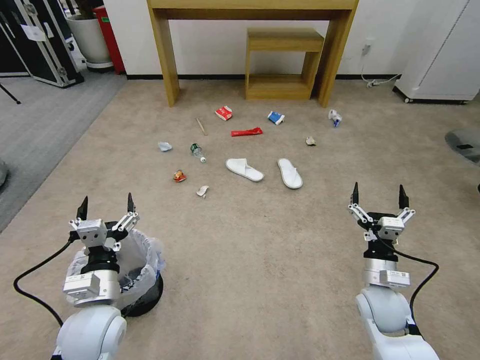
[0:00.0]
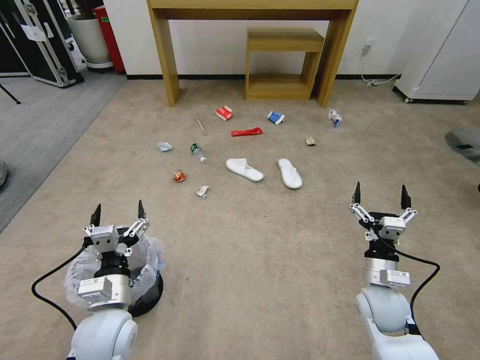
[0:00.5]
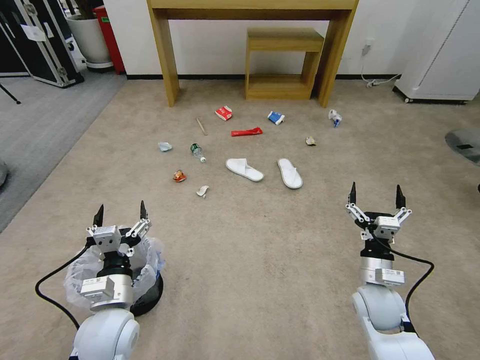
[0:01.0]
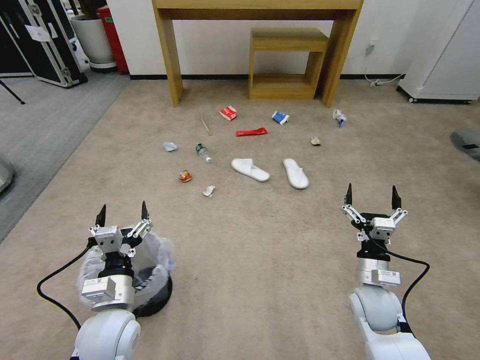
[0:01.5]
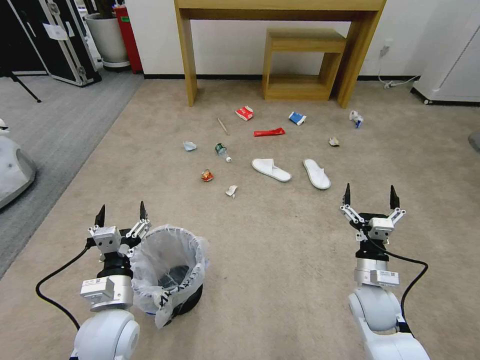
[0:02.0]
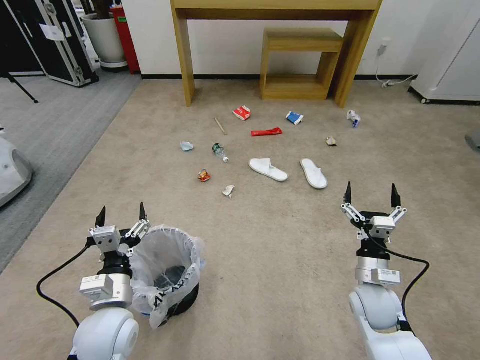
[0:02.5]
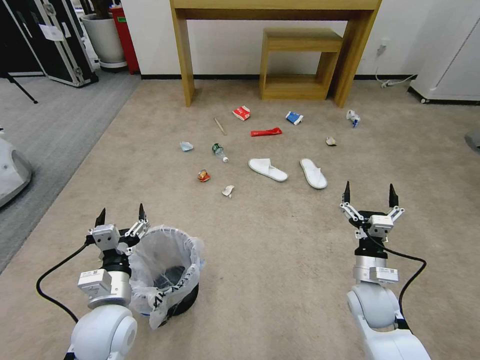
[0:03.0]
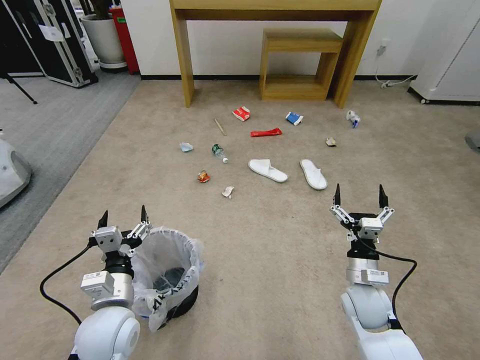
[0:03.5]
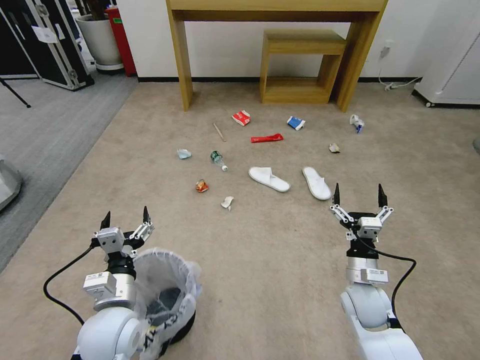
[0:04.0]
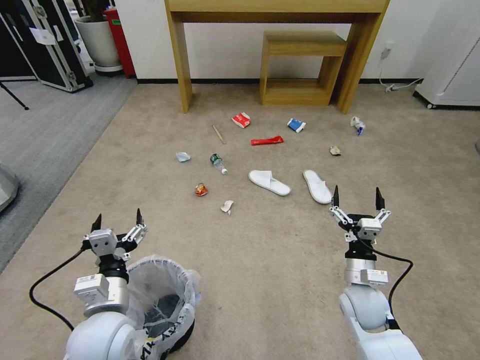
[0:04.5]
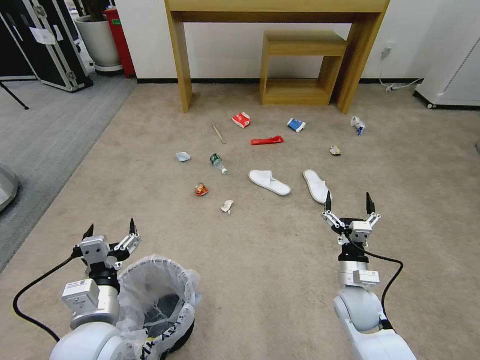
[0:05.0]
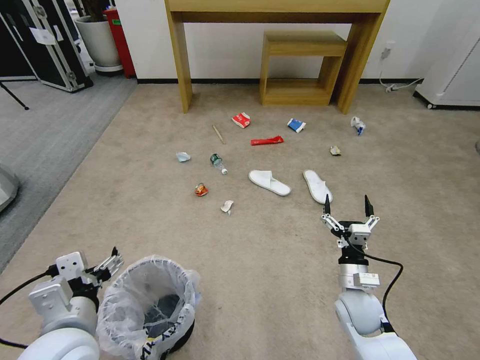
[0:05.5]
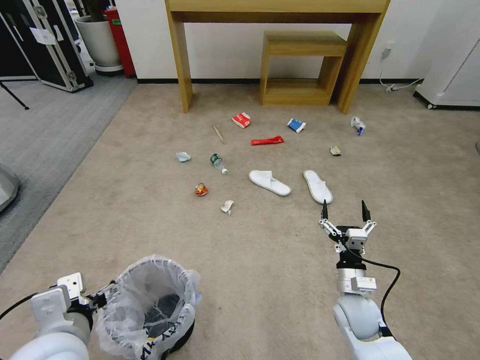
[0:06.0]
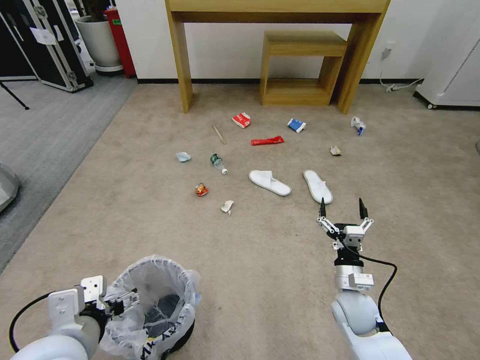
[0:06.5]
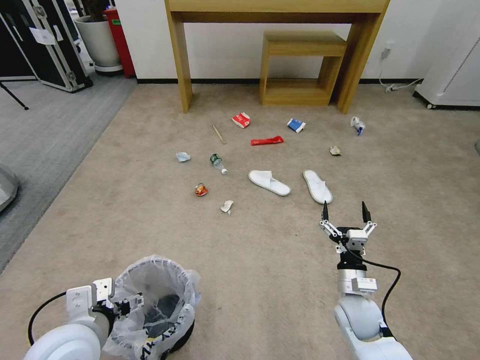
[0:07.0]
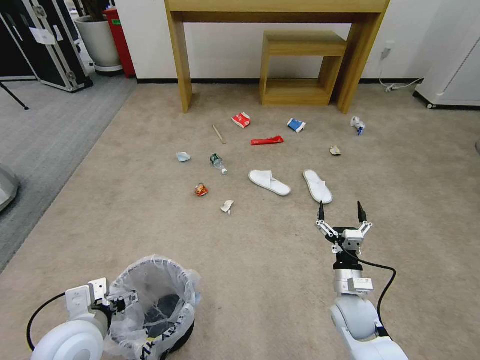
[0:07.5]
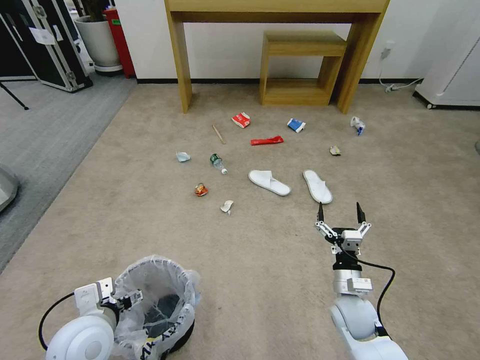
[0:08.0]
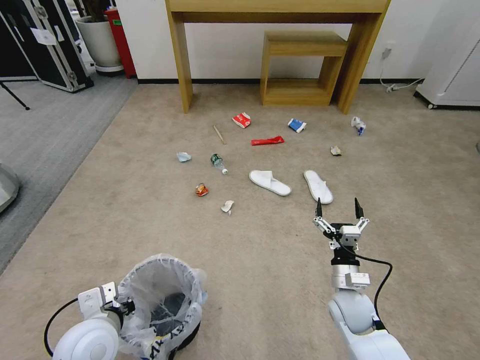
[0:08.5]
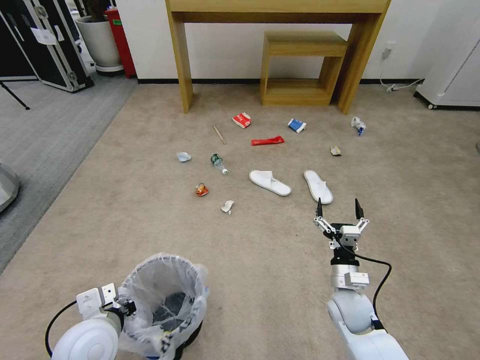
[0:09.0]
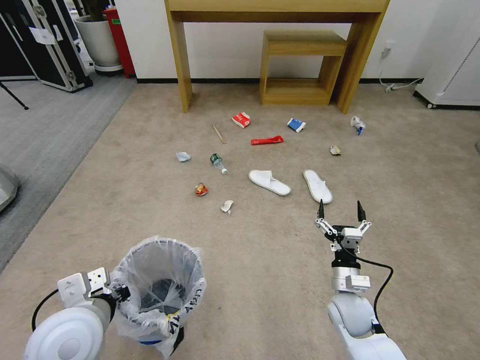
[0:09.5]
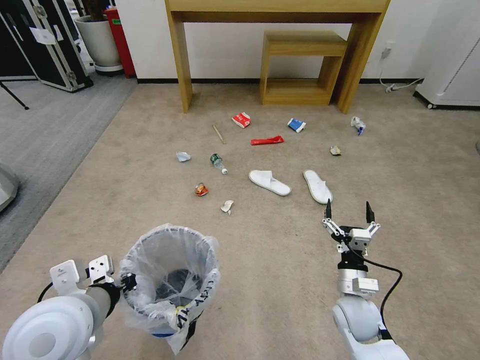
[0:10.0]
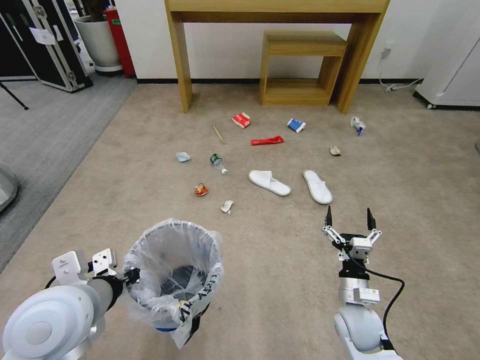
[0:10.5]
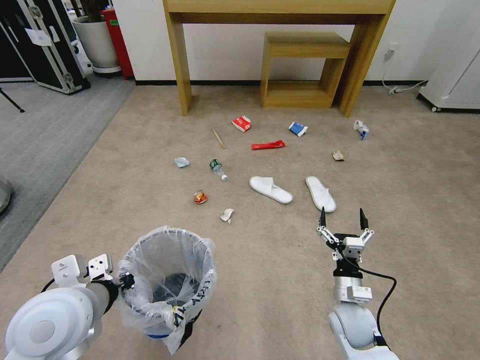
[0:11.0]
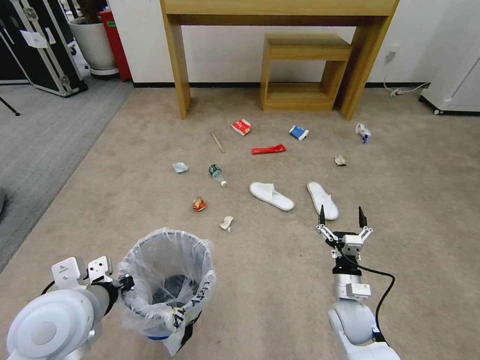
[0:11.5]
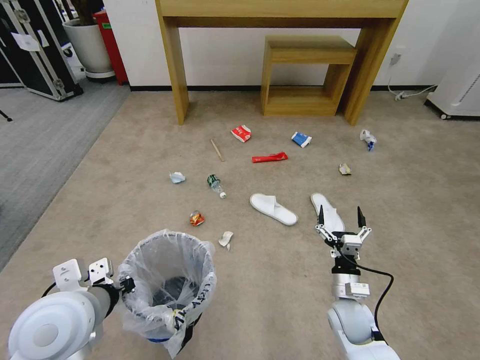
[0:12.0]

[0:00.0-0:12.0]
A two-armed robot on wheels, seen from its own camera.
Task of the whole recording: Pick up the trash bin and place the garbage on the floor into it.
0:02.0 to 0:04.0: The grippers make only small movements.
0:04.0 to 0:06.0: The left gripper goes about 10 cm upward and backward.
0:06.0 to 0:08.0: The left gripper travels downward by some 10 cm.
0:08.0 to 0:10.0: The left gripper goes approximately 10 cm upward, and closes its fingers.

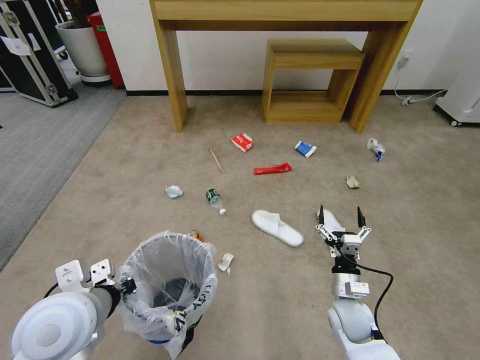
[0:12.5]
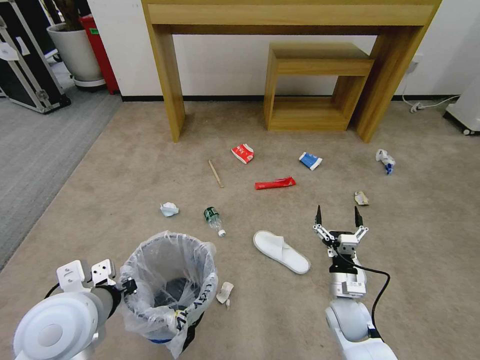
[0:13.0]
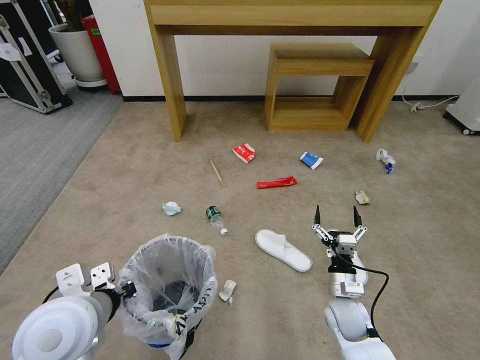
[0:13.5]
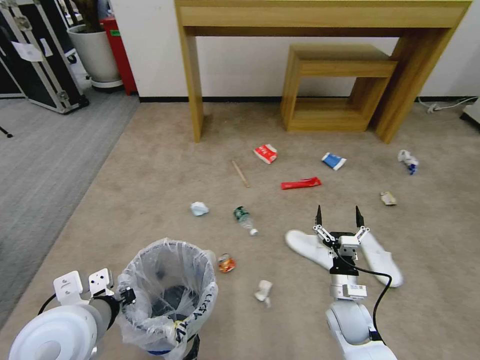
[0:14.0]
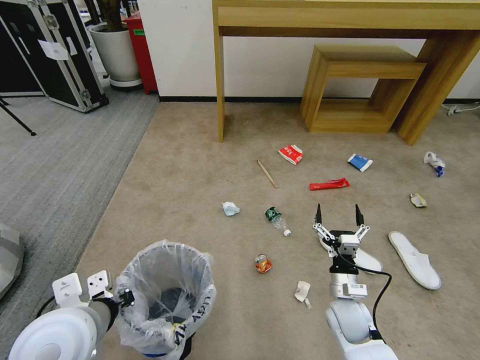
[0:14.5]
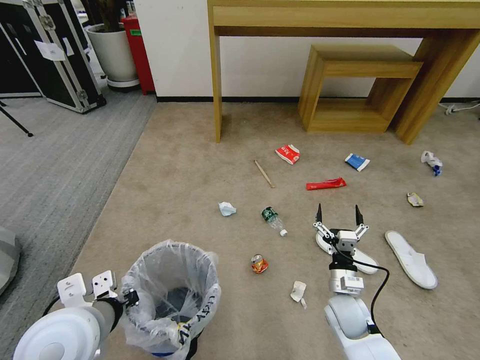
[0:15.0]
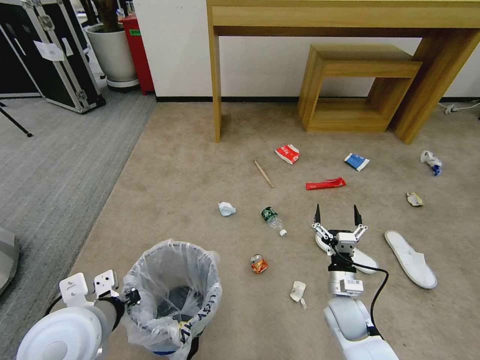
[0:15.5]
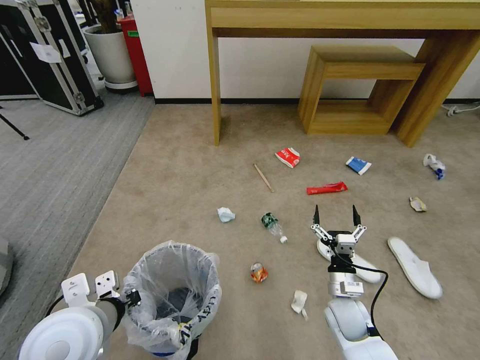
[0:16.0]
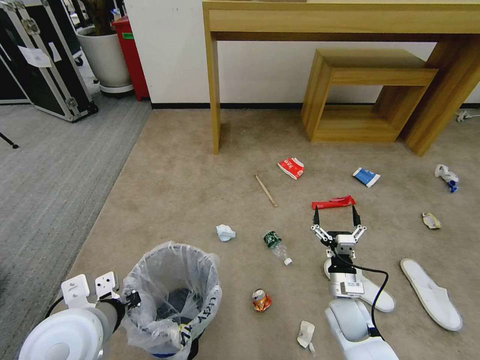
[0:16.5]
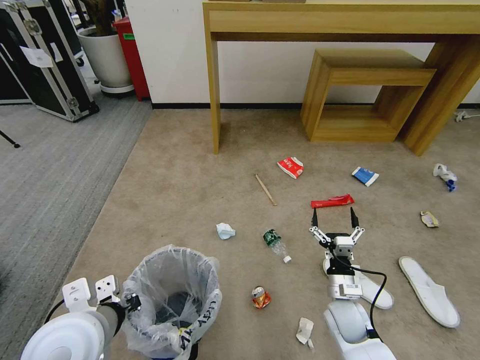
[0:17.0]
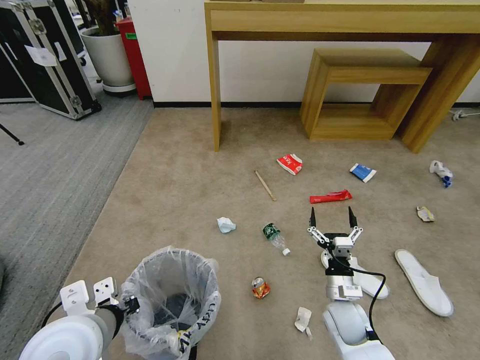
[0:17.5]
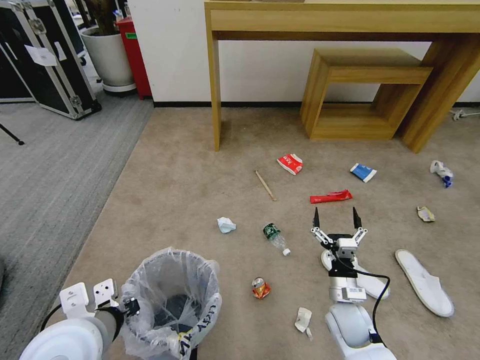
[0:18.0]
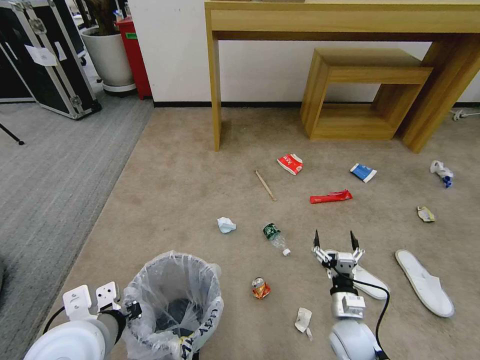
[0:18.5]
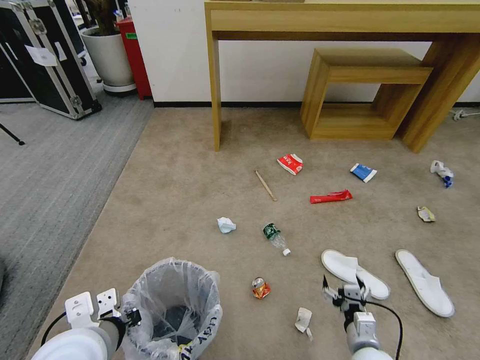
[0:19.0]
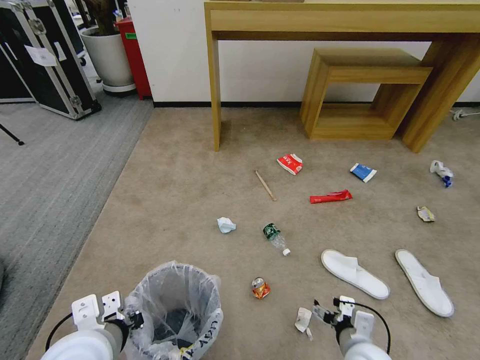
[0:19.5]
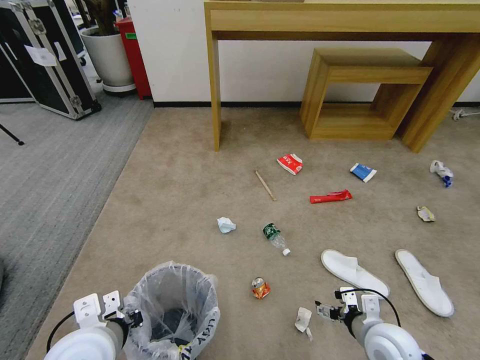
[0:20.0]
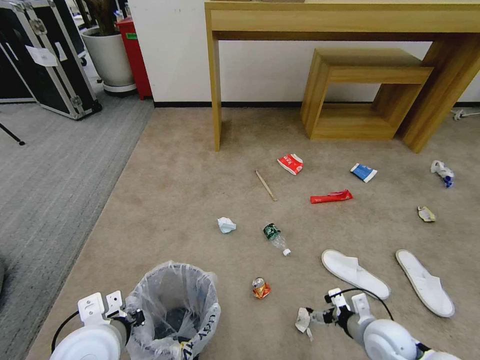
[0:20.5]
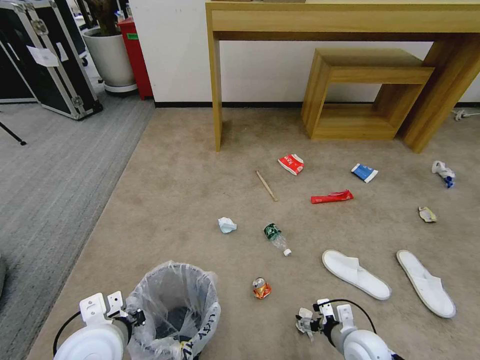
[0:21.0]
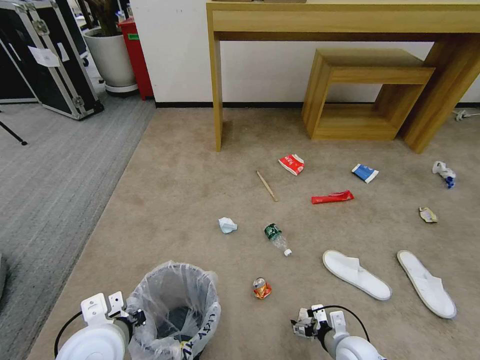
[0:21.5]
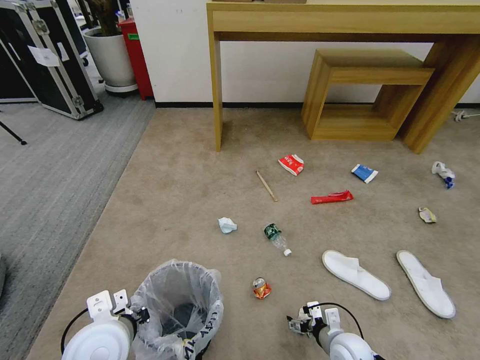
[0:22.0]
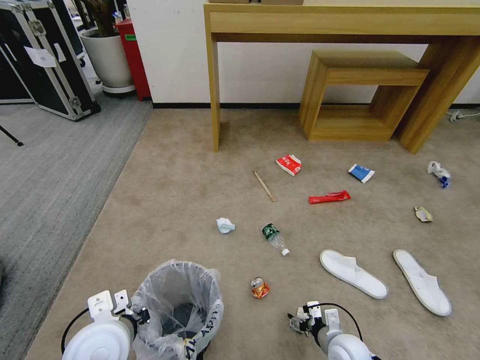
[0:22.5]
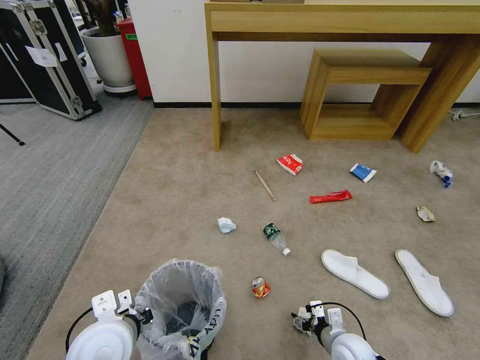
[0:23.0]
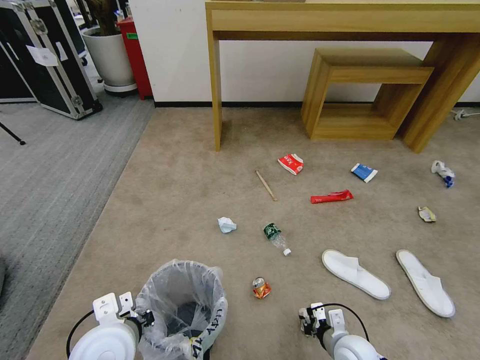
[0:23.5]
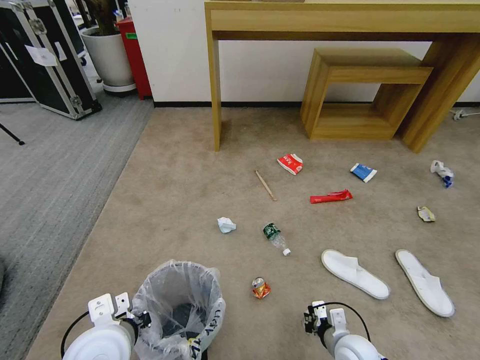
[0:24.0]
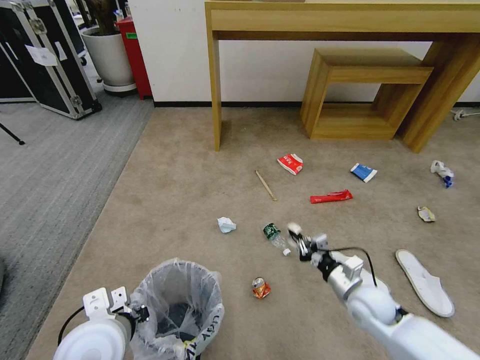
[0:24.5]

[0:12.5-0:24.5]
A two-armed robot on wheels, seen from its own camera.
Task of the whole recording: Pick up the trash bin and place the garbage on the floor into it.
0:16.5 to 0:18.5: The grippers move only a little.
0:18.5 to 0:20.5: The right gripper is displaced to the right by some 5 cm.
0:20.5 to 0:22.5: The right gripper is displaced downward and to the left by some 10 cm.
0:22.5 to 0:24.5: The right gripper moves upward and forward, about 15 cm, and closes its fingers.

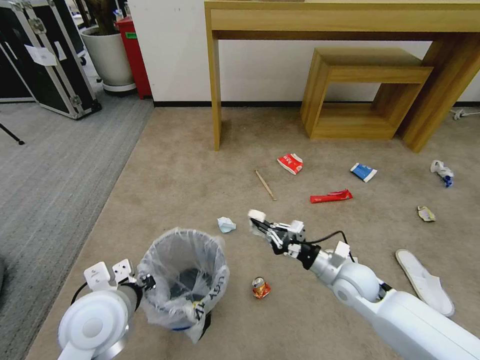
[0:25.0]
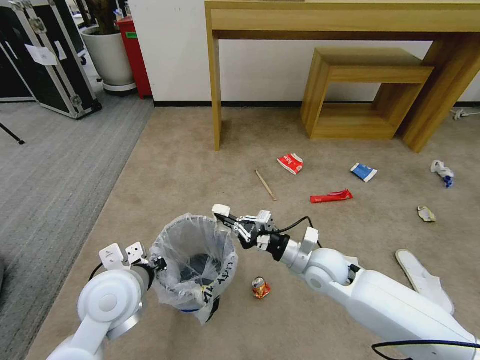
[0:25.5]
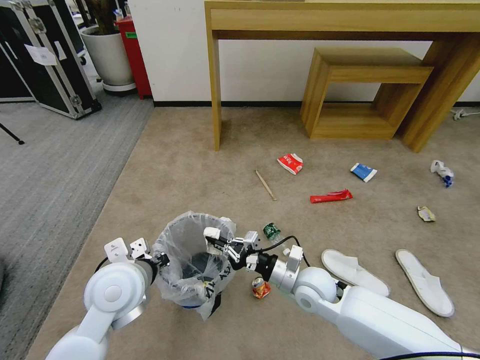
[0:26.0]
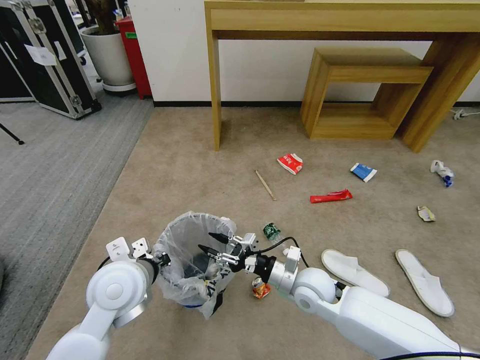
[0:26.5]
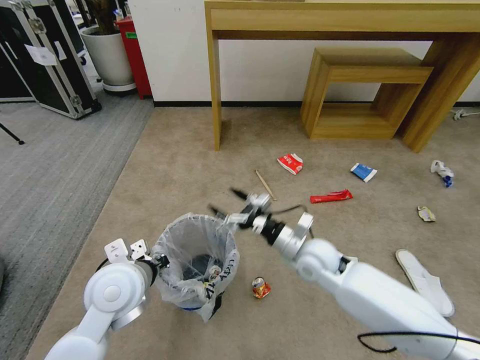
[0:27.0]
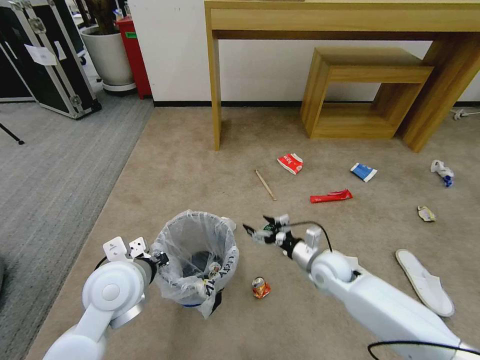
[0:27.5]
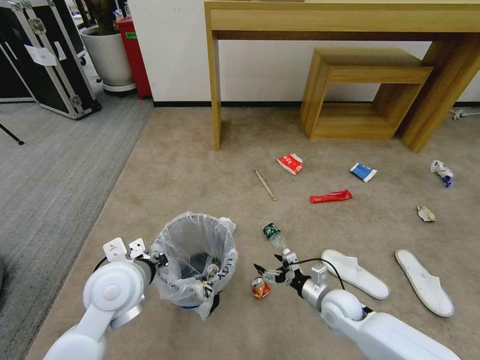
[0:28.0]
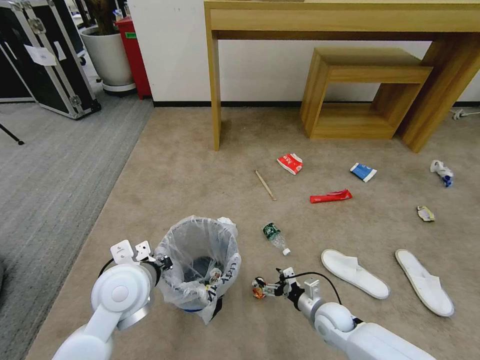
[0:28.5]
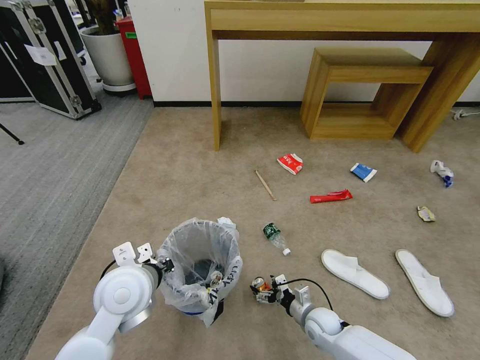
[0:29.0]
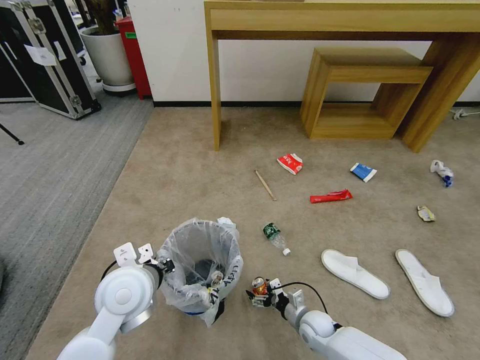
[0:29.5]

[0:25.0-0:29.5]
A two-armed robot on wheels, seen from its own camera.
Task of the whole recording: Pick up the trash bin and place the garbage on the floor into it.
0:25.0 to 0:27.0: The right gripper moves to the left, forward and upward, approximately 10 cm, and opens; the left gripper heads forward, covering roughly 5 cm.
0:27.0 to 0:29.5: The right gripper travels downward by roughly 25 cm.
